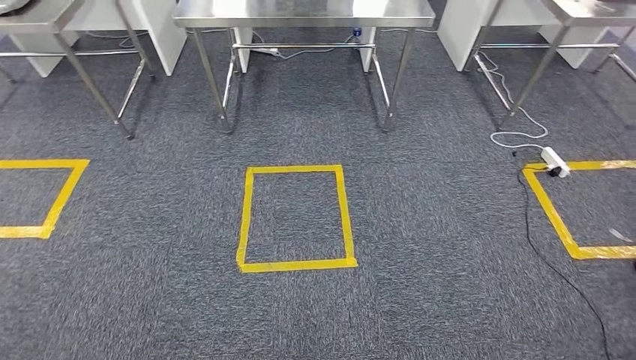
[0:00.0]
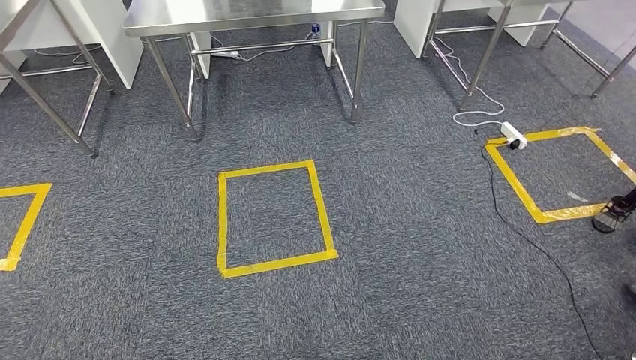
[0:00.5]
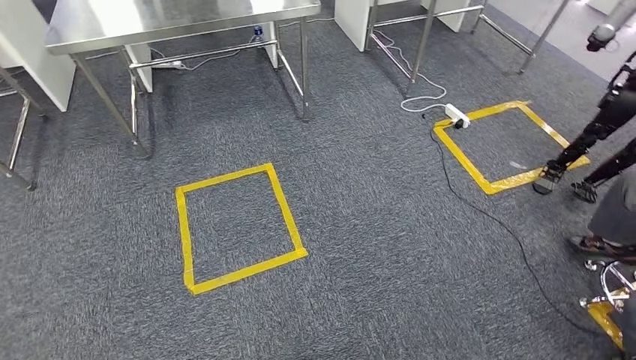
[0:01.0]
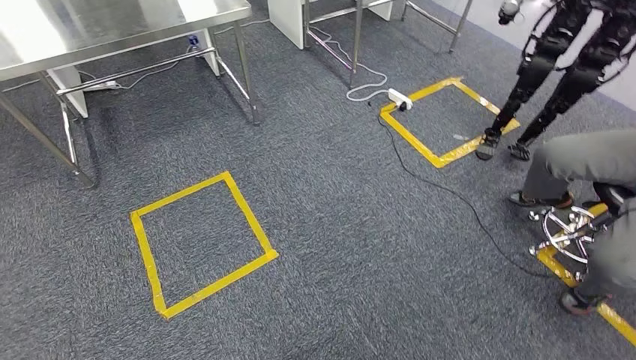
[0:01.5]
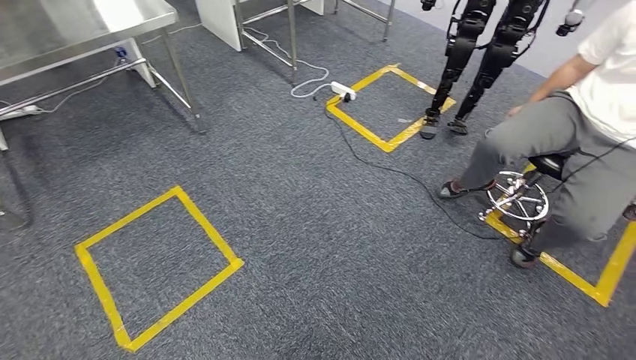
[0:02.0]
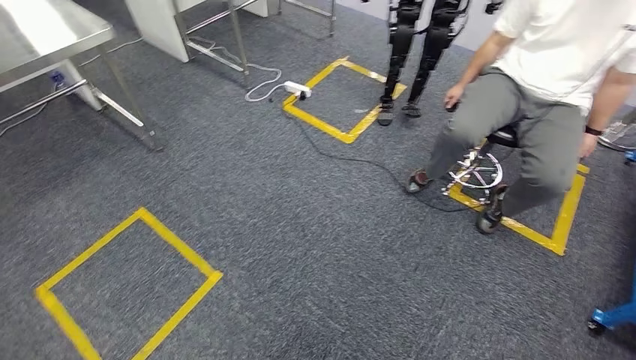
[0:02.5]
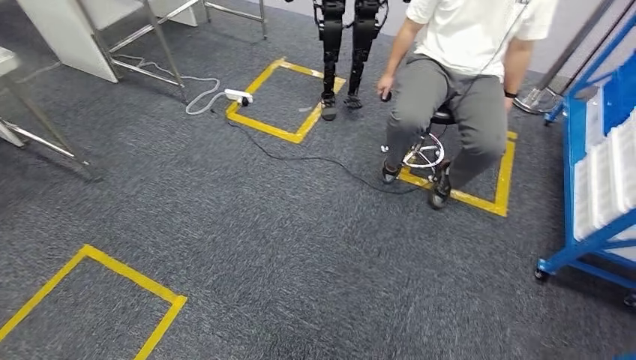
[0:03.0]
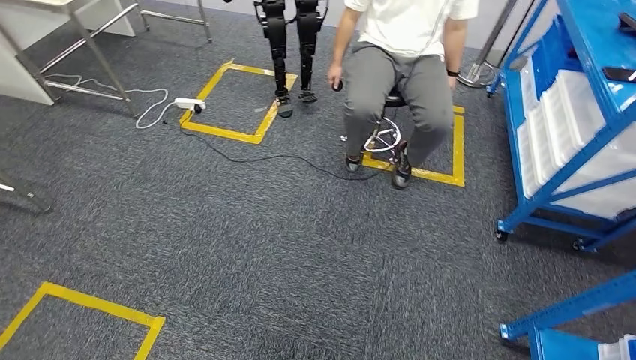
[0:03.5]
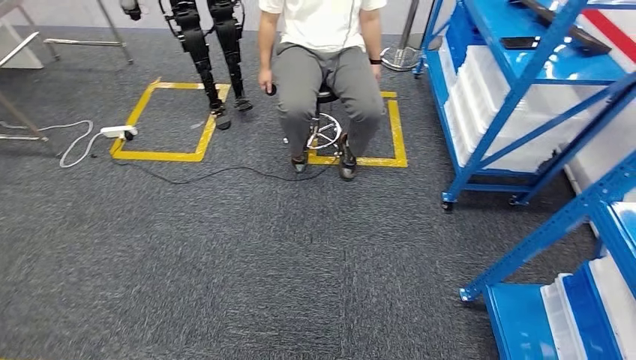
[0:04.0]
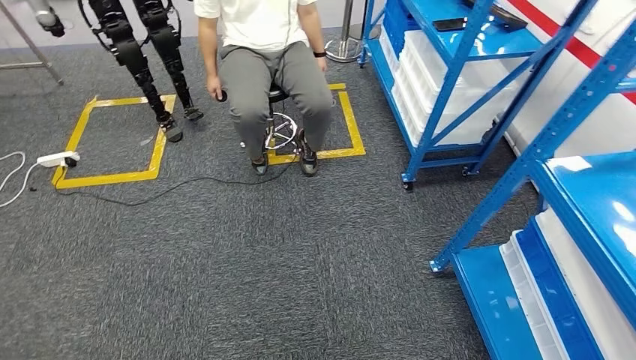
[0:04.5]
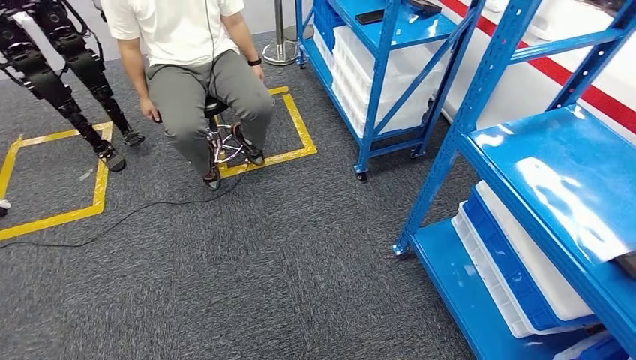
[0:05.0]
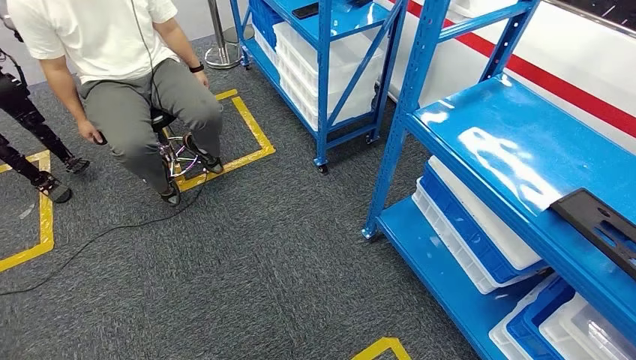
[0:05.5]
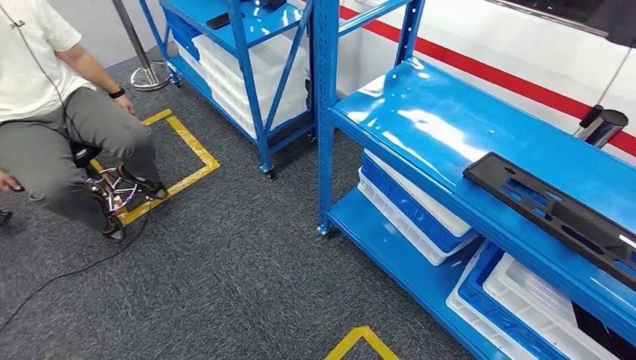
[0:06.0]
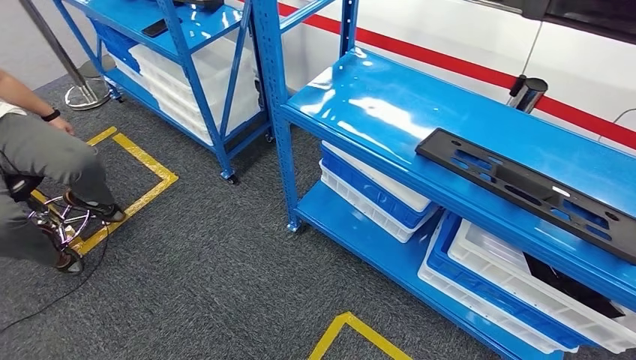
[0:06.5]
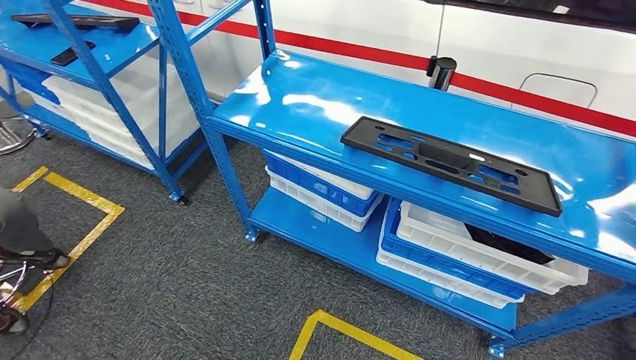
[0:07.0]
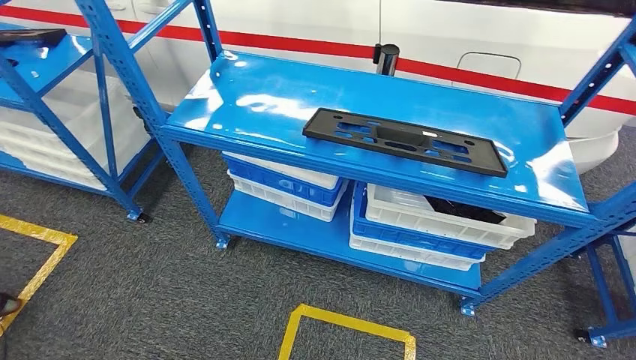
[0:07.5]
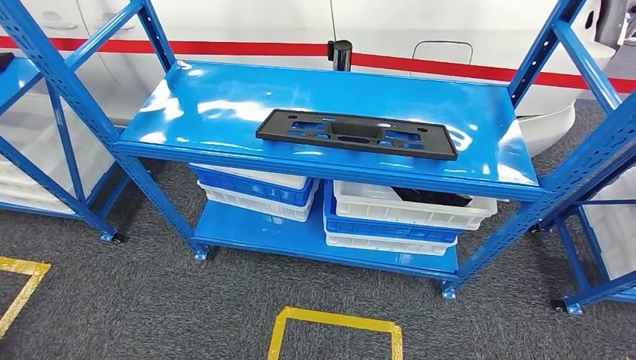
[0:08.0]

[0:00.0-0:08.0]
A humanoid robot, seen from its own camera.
Step, 0:00.0 to 0:08.0: Move to the initial position of the shelf.
